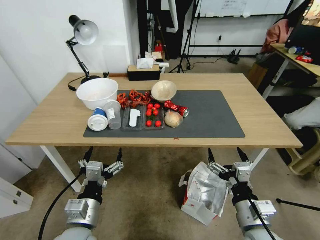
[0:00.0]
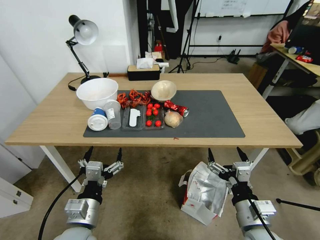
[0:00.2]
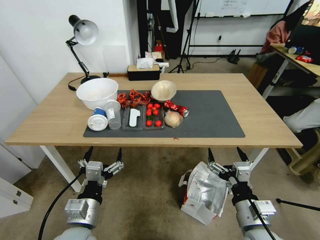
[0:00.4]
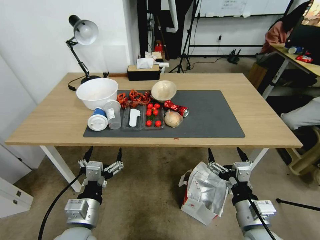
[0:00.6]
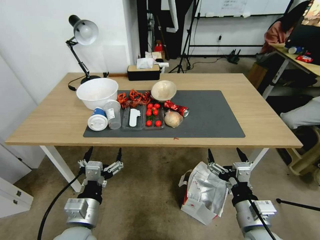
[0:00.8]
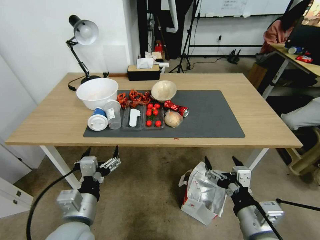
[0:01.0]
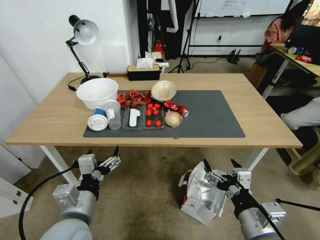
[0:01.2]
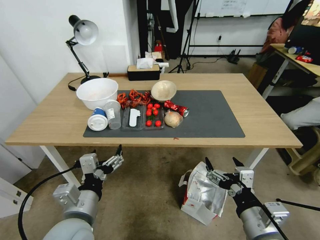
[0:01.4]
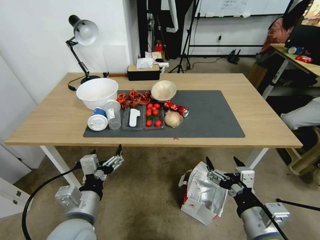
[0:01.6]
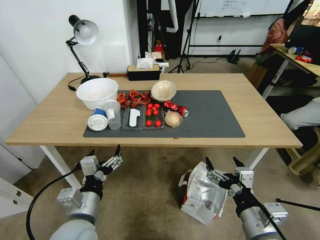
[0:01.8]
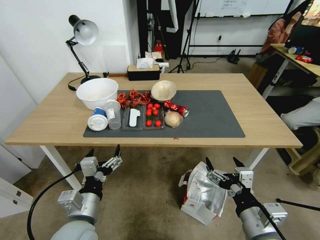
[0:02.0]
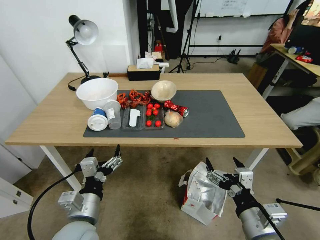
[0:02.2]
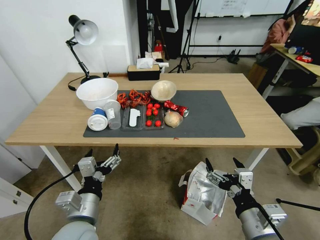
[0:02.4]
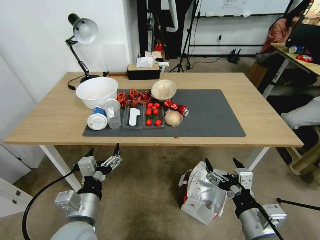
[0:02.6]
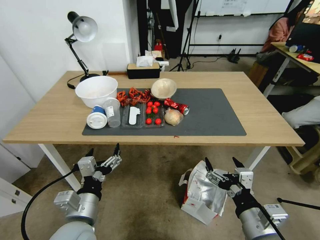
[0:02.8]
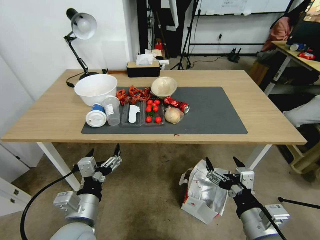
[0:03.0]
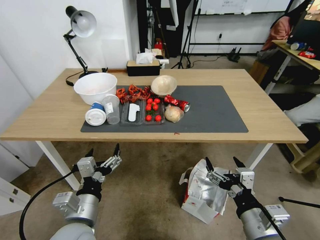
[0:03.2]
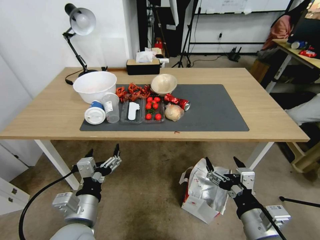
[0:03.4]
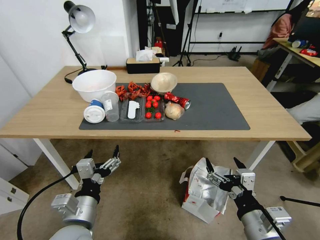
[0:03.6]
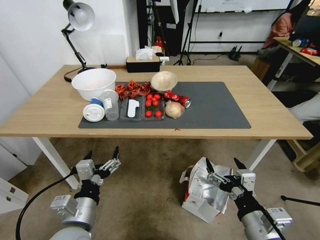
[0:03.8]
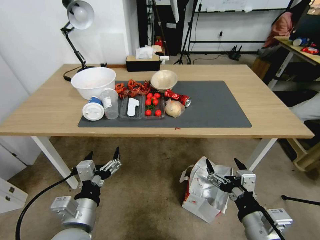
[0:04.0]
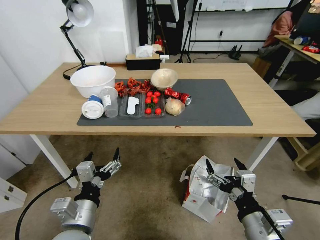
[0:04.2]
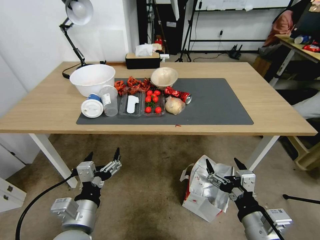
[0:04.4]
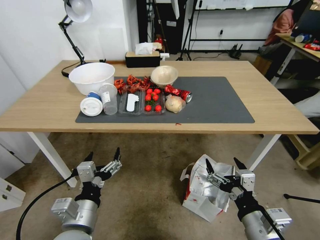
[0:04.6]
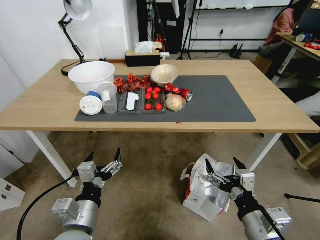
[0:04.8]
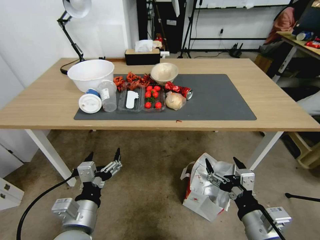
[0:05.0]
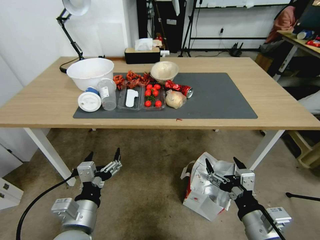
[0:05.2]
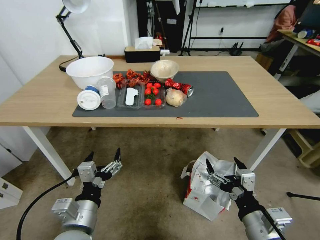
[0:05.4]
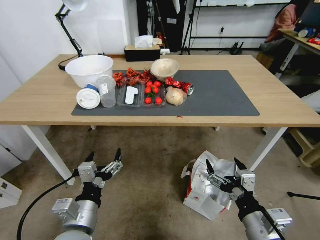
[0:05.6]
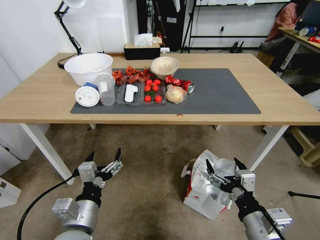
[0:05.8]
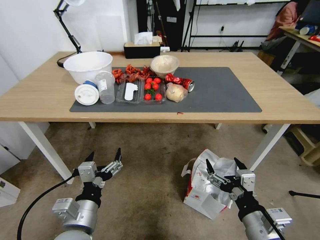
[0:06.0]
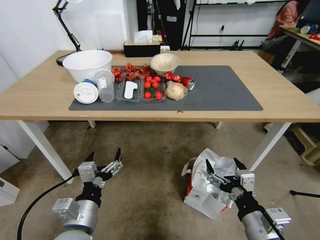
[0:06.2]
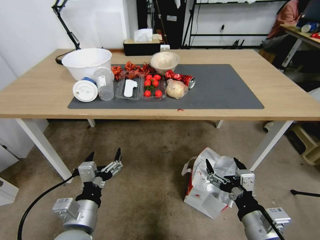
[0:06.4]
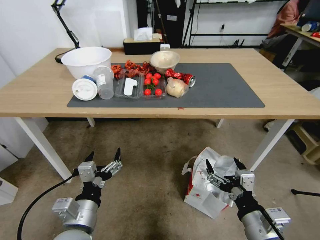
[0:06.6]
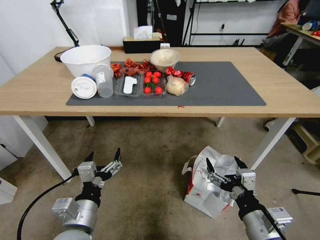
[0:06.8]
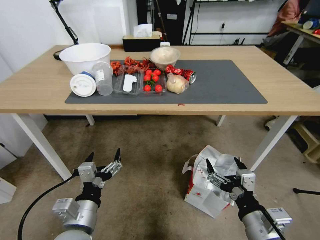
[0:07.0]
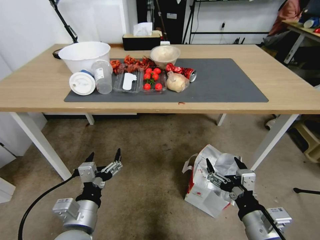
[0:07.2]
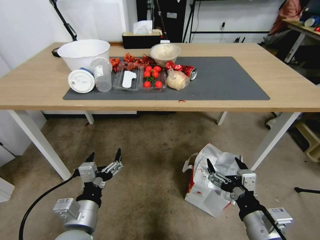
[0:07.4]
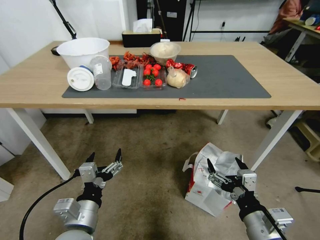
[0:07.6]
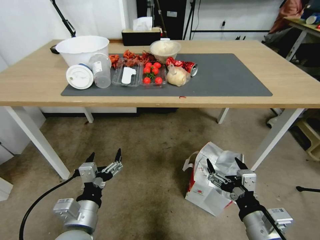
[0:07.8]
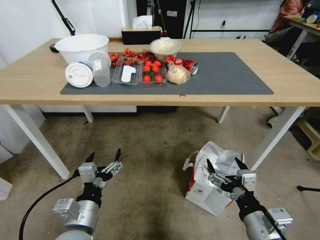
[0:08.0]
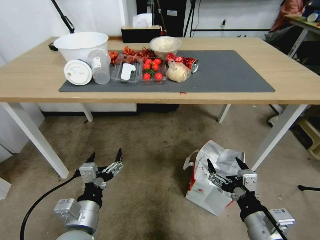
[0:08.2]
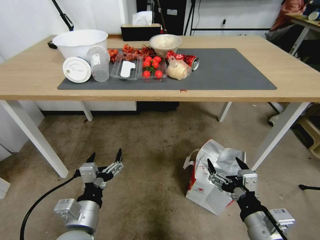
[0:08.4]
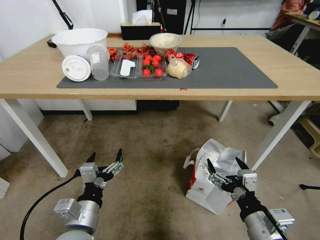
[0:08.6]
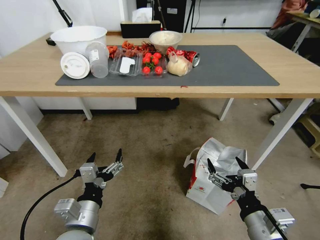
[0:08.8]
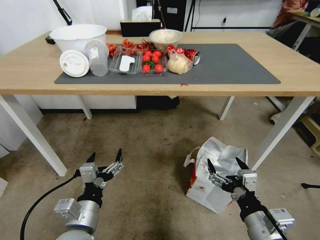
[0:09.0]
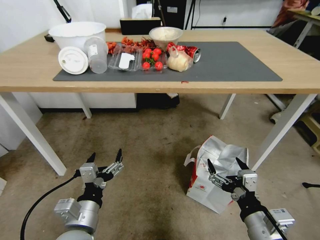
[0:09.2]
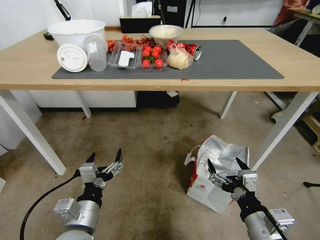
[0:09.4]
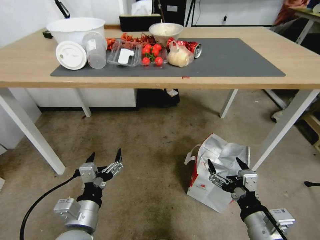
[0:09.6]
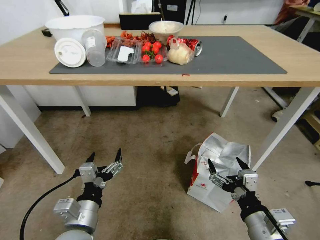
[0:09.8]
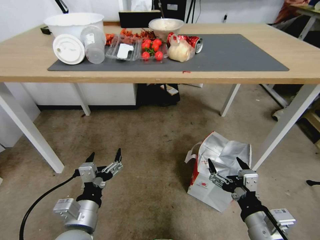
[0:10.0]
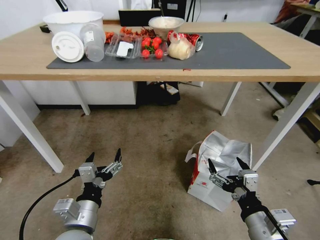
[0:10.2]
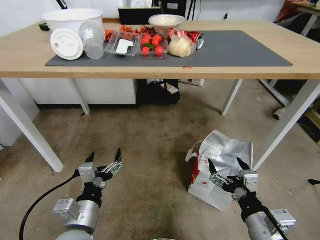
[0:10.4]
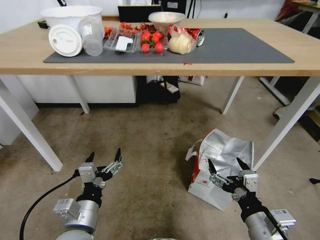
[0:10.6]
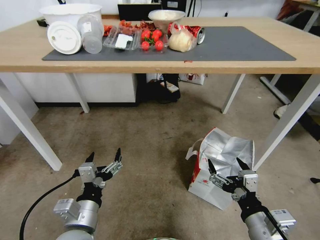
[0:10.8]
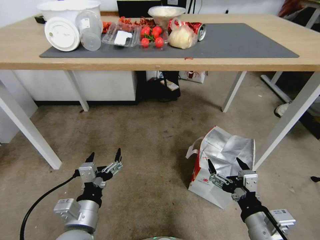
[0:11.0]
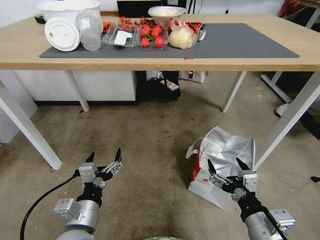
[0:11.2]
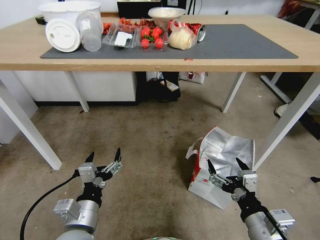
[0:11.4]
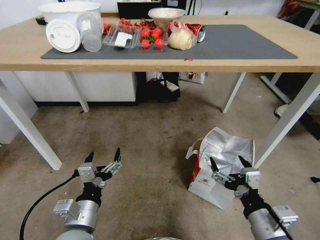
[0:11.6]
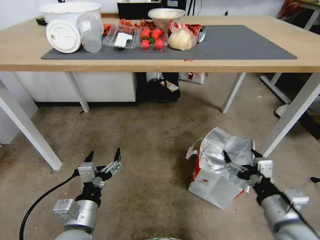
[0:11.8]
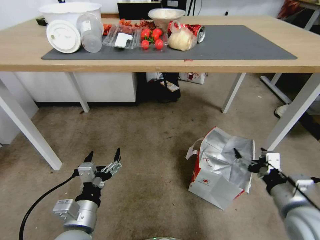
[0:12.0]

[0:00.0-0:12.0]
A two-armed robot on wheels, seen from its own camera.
Task of the whole recording: Pick up the food delivery bag from the floor and place it on the table.
0:10.4 to 0:12.0: The right gripper goes some 10 cm to the right and forward.

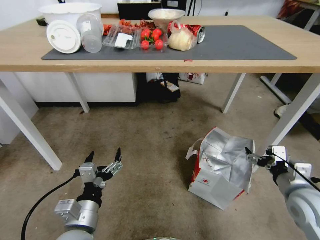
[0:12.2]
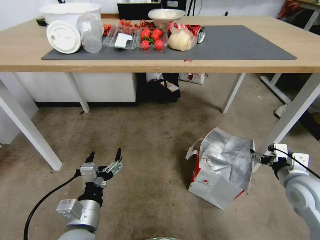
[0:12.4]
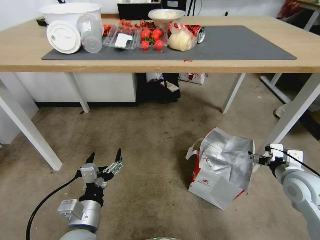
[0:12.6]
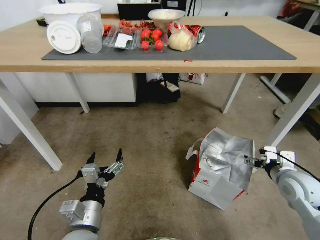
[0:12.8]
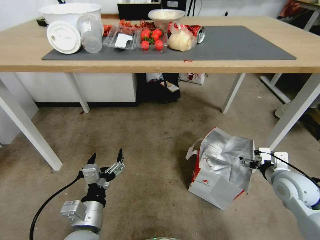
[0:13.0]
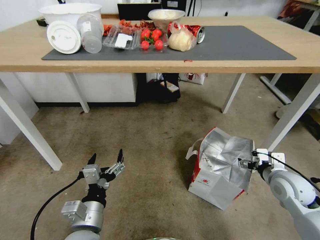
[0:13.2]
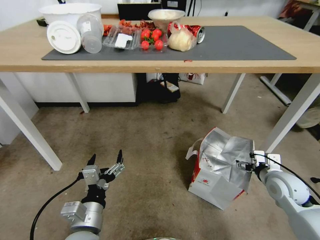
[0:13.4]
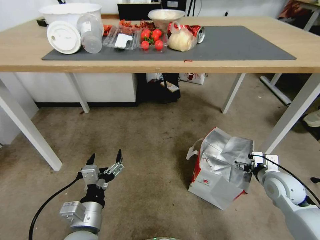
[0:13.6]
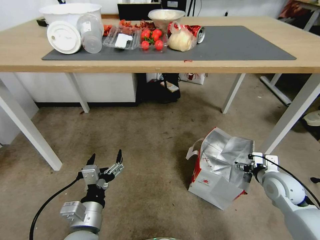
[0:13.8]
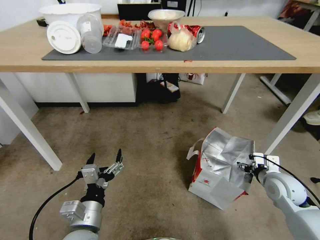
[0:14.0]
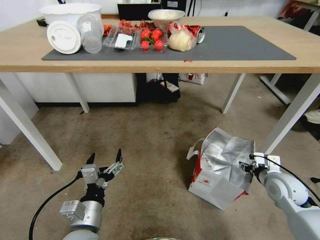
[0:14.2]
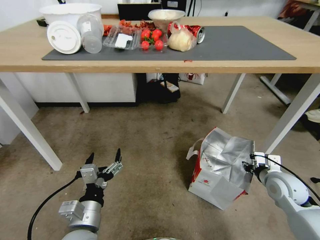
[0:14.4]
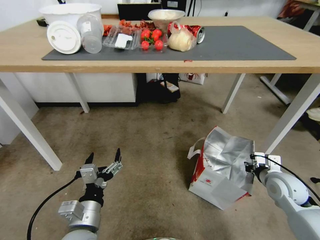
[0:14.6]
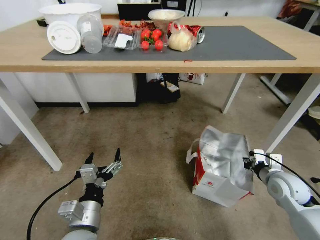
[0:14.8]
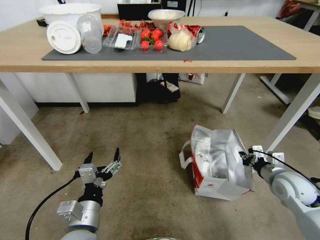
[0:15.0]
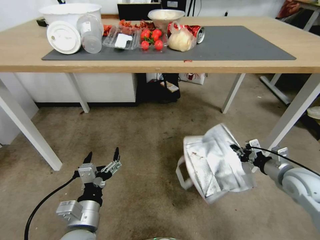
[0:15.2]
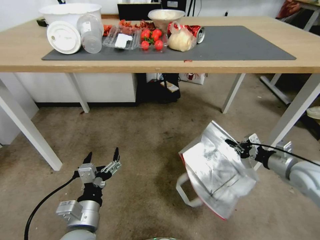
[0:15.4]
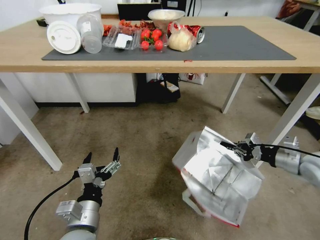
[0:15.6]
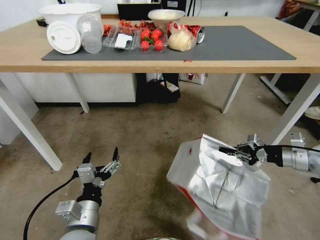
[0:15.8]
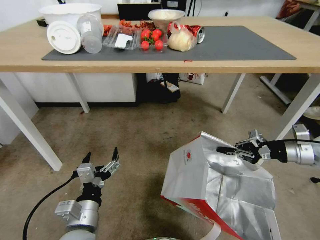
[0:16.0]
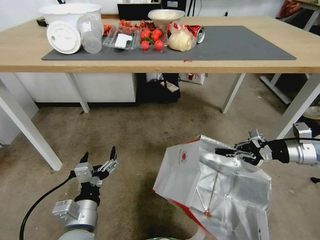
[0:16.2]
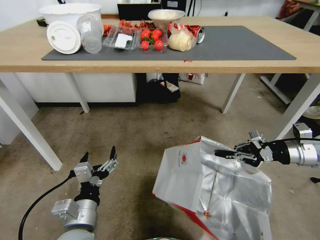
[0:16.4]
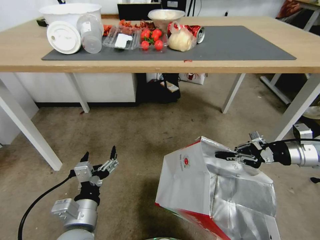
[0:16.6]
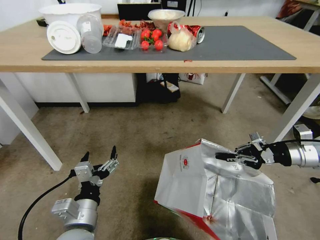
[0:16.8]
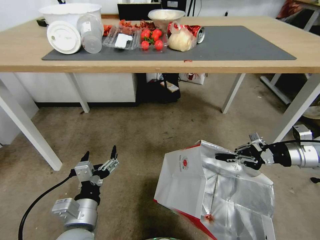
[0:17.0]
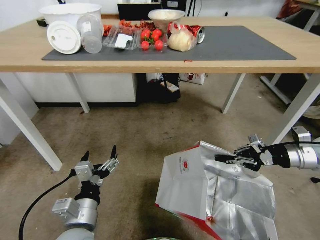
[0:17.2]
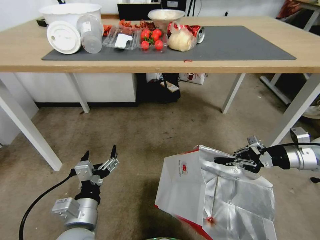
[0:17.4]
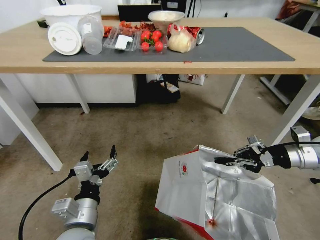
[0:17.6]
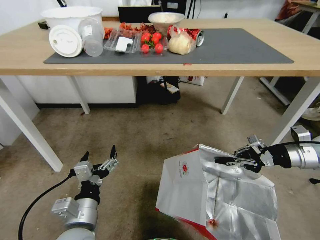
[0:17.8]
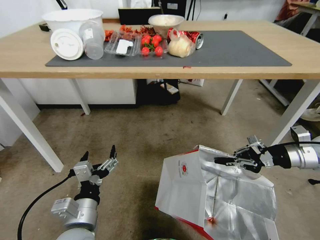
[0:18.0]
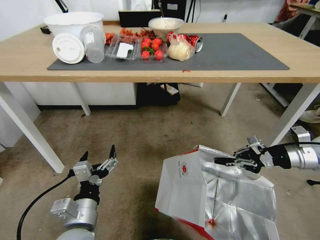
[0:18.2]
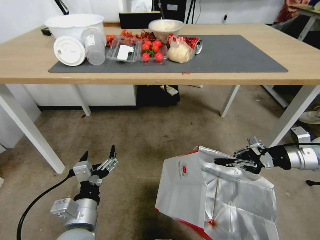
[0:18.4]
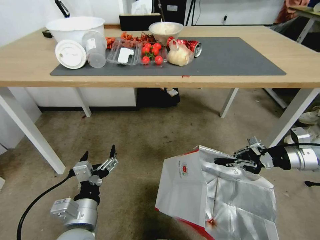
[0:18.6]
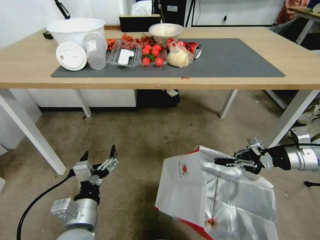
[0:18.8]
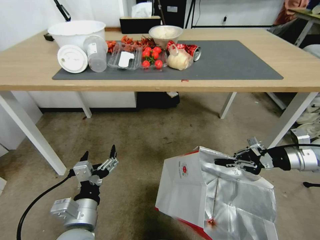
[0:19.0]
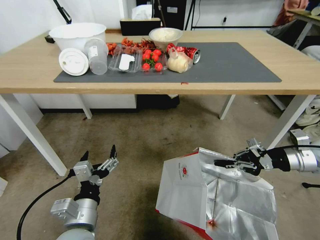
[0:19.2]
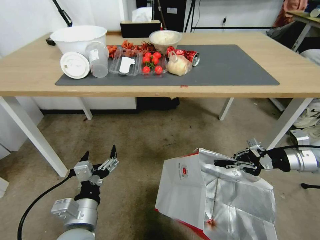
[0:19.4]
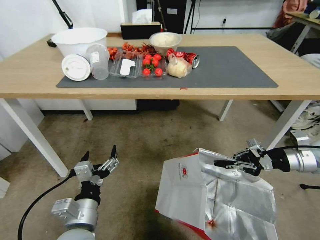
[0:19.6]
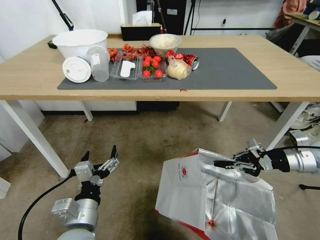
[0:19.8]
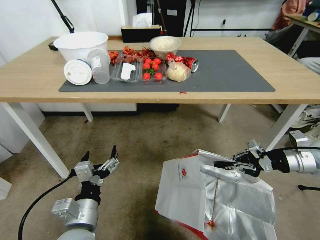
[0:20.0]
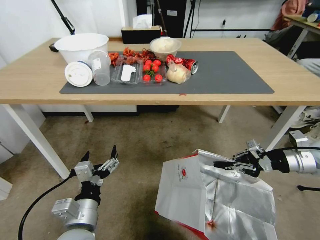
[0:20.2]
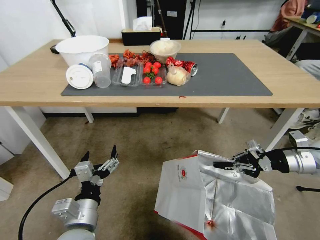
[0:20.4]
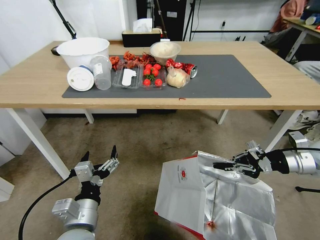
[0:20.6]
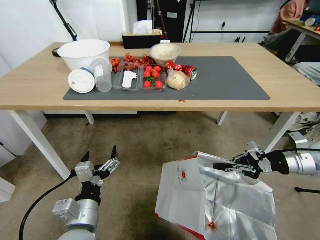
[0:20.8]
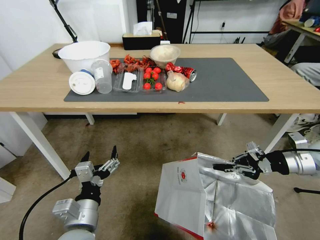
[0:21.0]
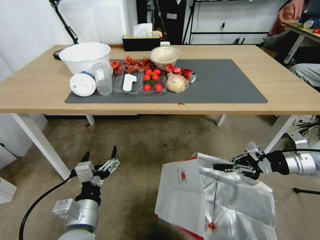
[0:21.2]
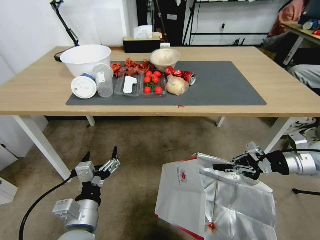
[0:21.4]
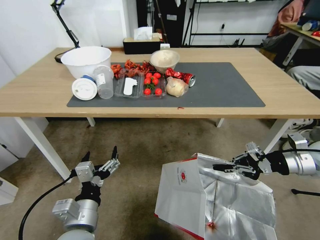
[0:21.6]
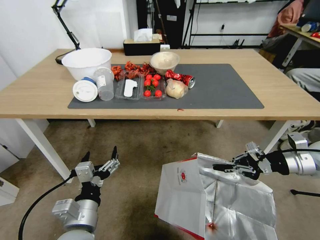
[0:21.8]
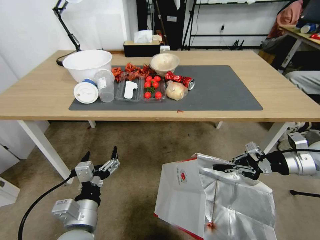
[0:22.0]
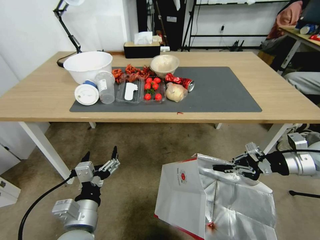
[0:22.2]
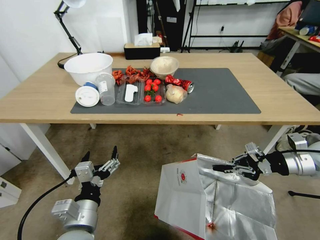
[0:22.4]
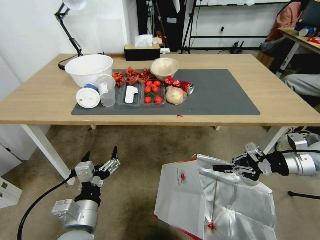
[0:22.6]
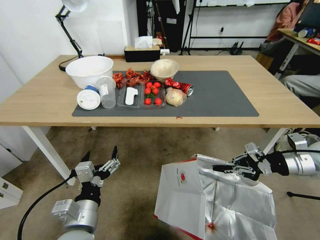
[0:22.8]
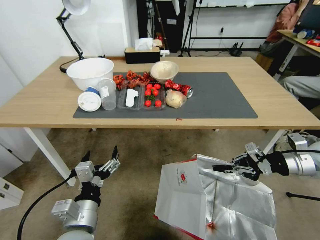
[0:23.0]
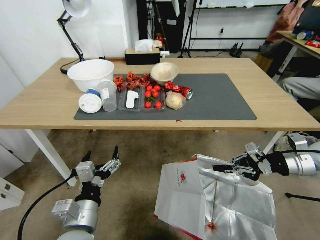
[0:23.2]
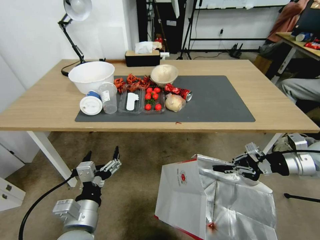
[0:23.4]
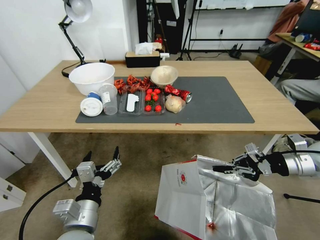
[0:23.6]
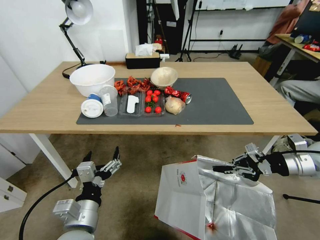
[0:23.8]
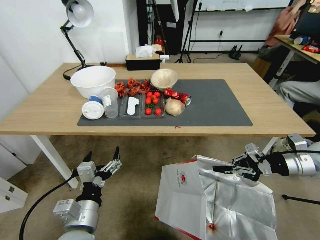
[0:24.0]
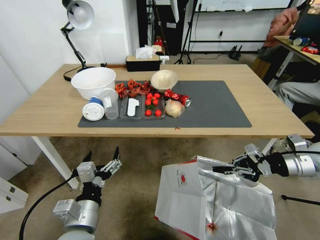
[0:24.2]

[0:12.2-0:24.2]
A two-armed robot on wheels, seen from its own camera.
Task of the whole recording: Pick up the food delivery bag from the floor and place it on the table.
0:12.2 to 0:13.8: The right gripper is displaced forward and downward by about 10 cm.
0:13.8 to 0:15.2: The right gripper moves approximately 5 cm, and closes its fingers.
0:15.2 to 0:16.6: The right gripper heads upward, covering some 10 cm.
